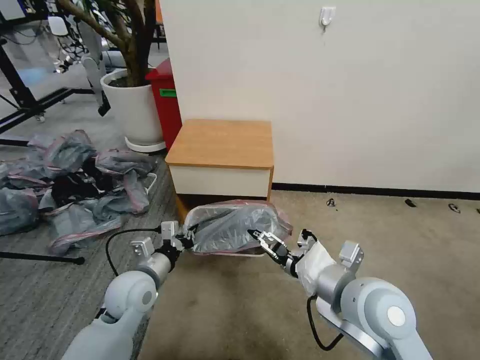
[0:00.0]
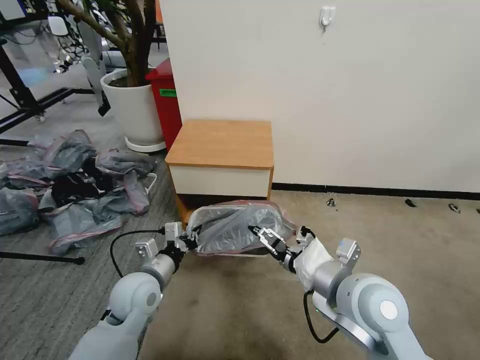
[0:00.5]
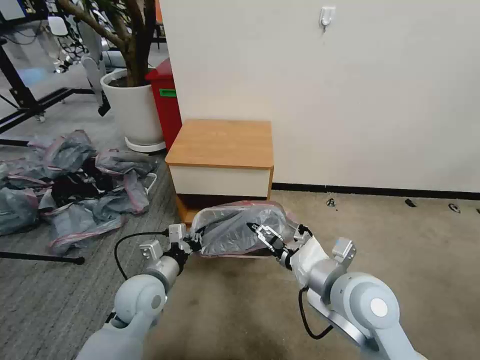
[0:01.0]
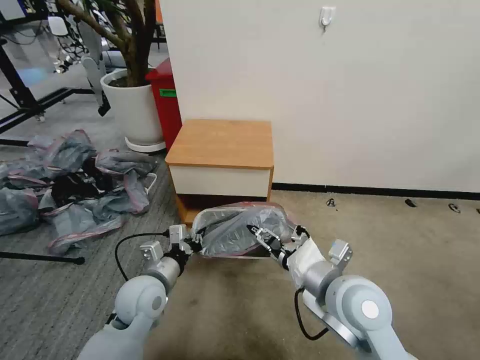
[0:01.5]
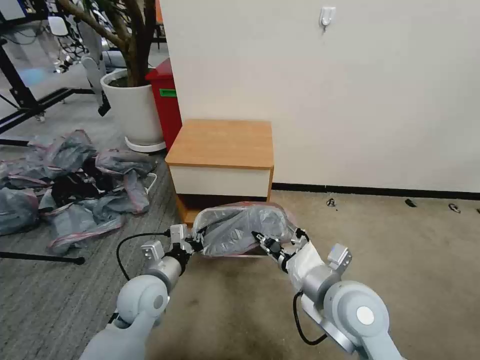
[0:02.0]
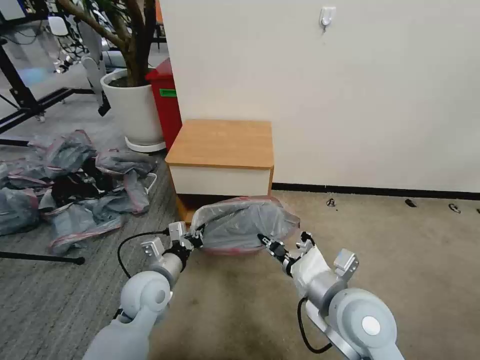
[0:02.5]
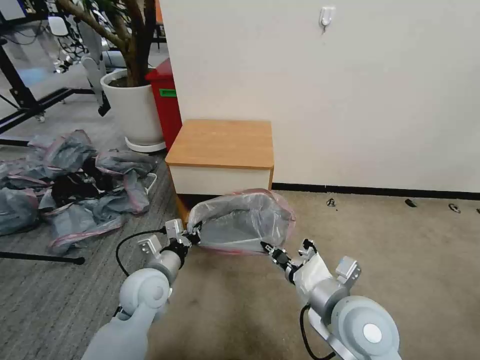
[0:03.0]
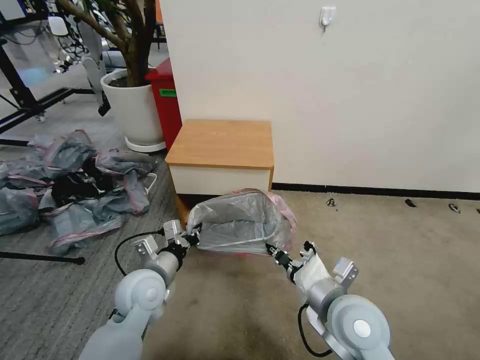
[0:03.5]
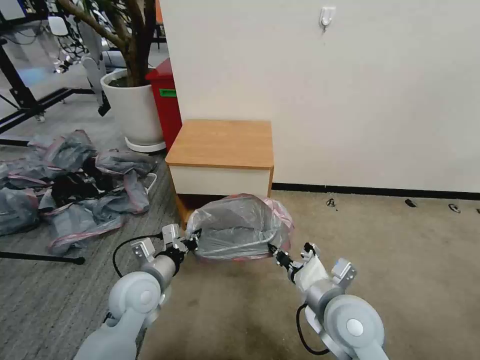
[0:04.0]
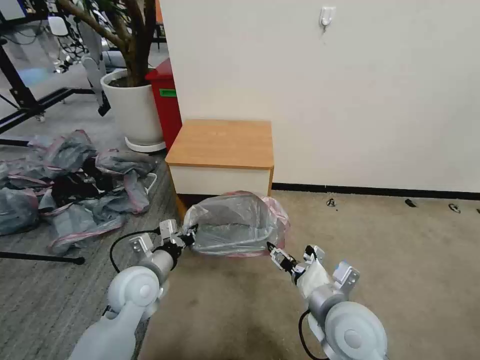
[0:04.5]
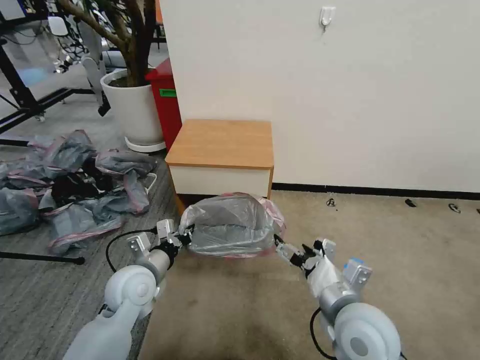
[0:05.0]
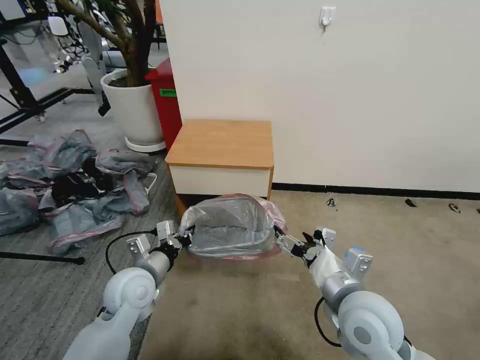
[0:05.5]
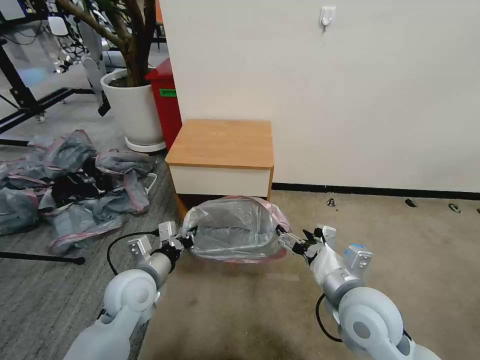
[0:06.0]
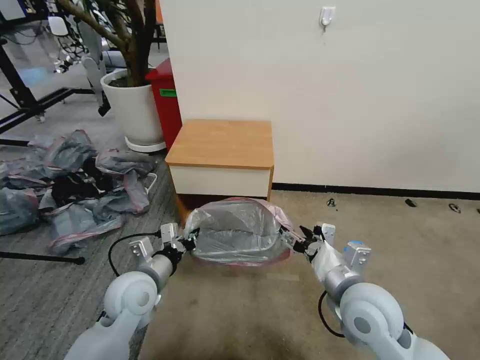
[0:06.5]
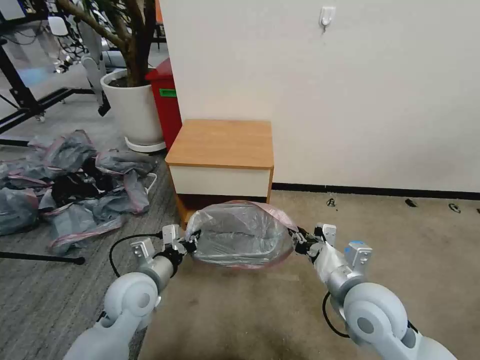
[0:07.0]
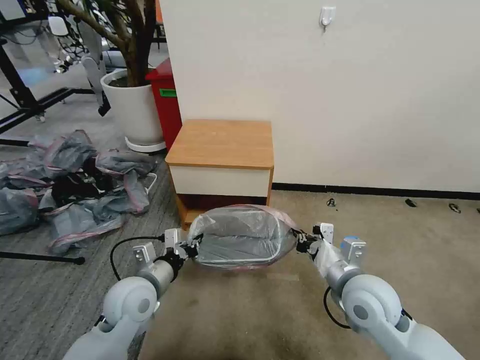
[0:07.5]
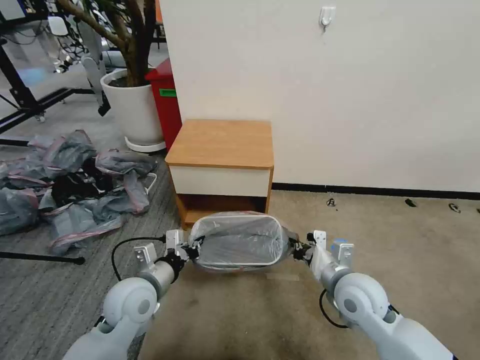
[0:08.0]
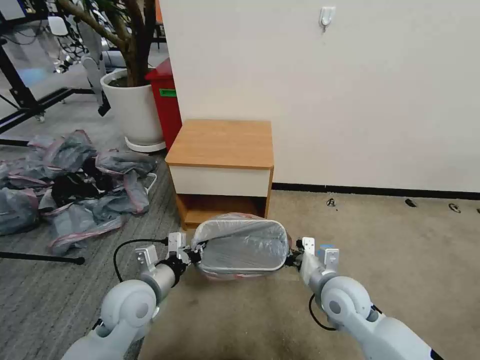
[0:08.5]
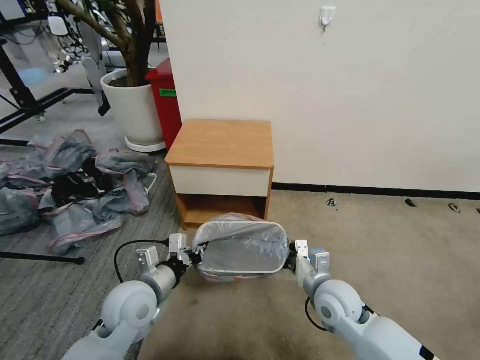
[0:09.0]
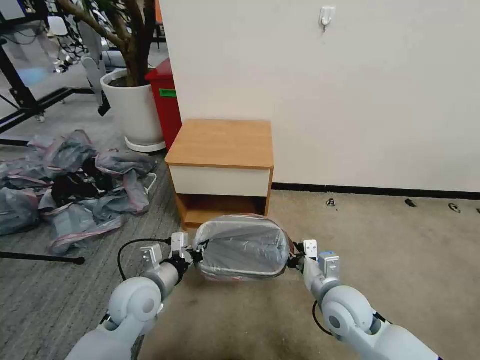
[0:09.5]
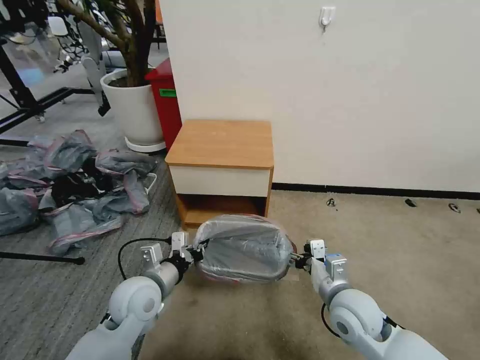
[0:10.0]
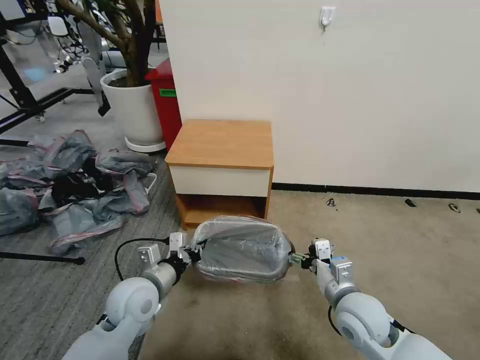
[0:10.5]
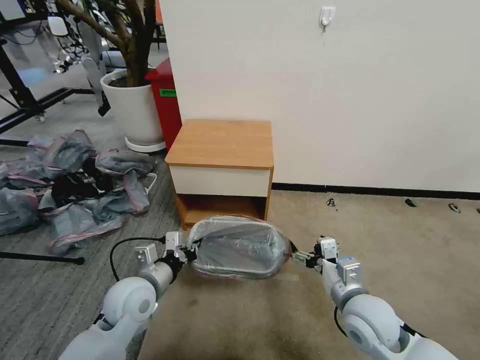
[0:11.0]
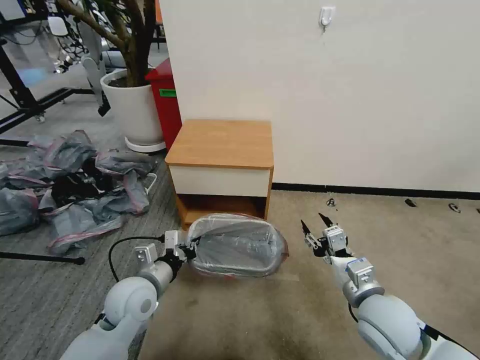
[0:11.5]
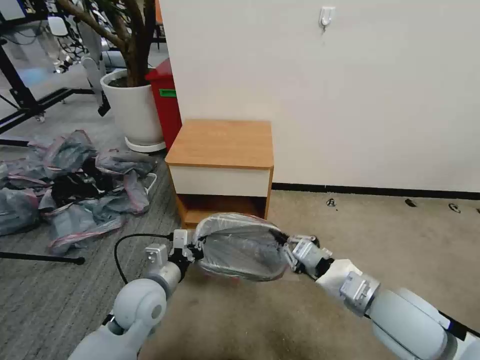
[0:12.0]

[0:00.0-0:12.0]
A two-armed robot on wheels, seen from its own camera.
Task of the whole recording: Pick up the garbage bag from the table and place it over the trash can.
0:00.0 to 0:02.0: The right gripper closes.
0:02.0 to 0:04.0: The grippers move only a little.
0:04.0 to 0:06.0: The right gripper opens its fingers.
0:06.0 to 0:08.0: The right gripper shifts approximately 5 cm downward, and closes.
0:08.0 to 0:10.0: The right gripper opens up.
0:10.0 to 0:12.0: The right gripper goes some 10 cm upward, and closes its fingers.

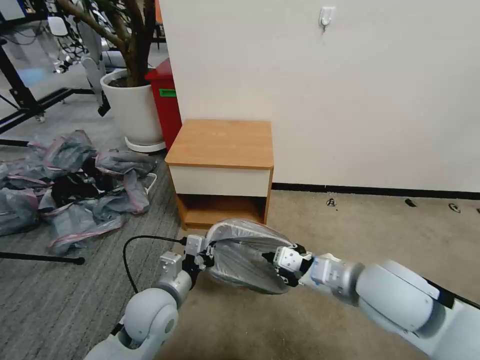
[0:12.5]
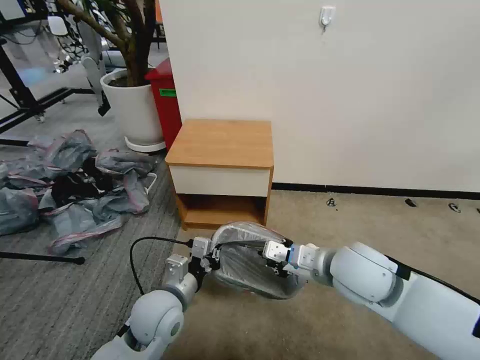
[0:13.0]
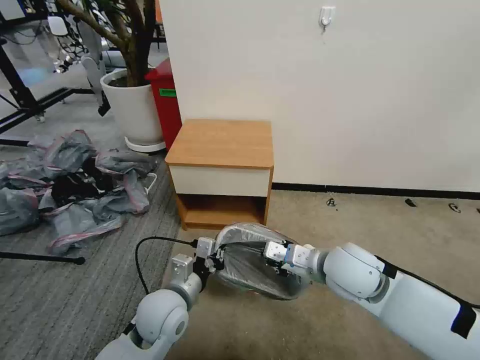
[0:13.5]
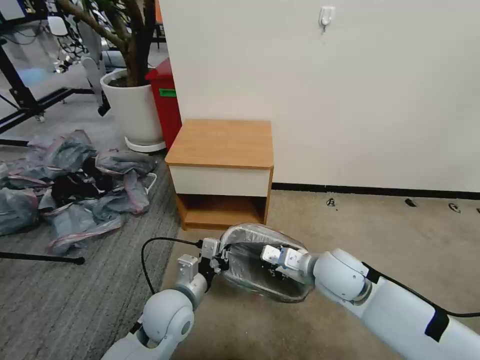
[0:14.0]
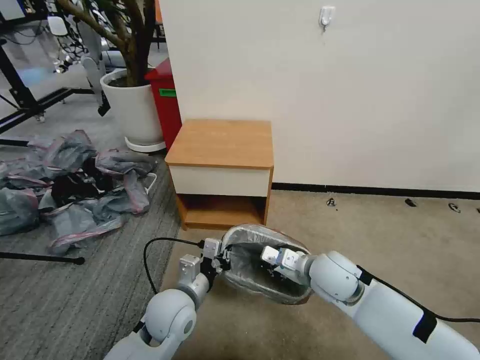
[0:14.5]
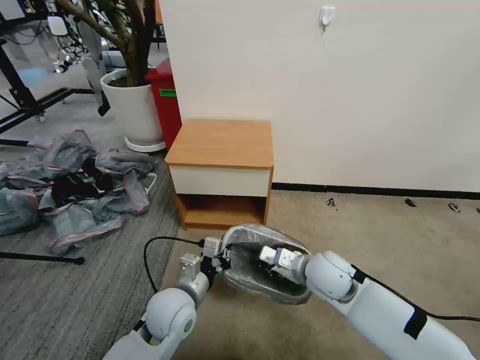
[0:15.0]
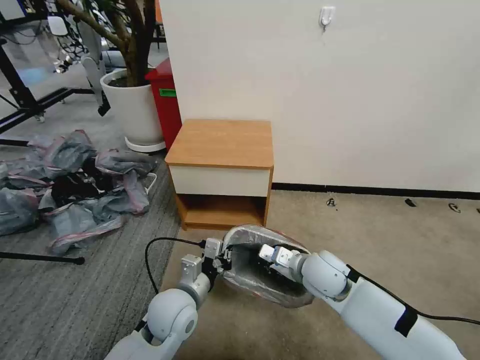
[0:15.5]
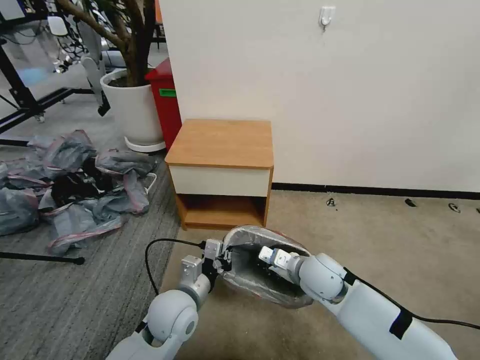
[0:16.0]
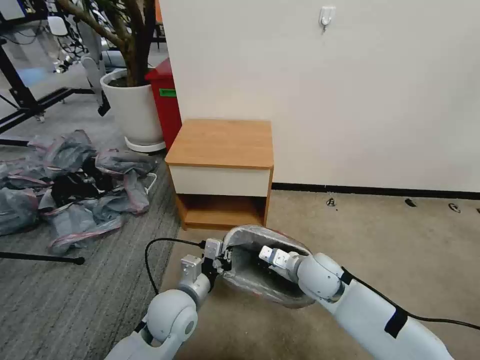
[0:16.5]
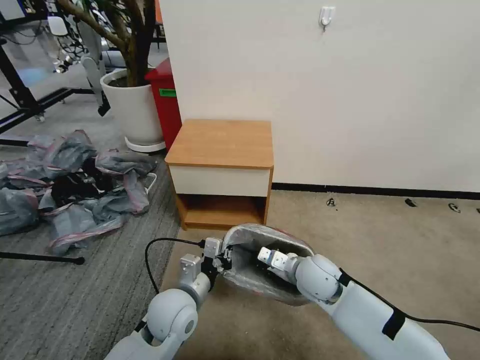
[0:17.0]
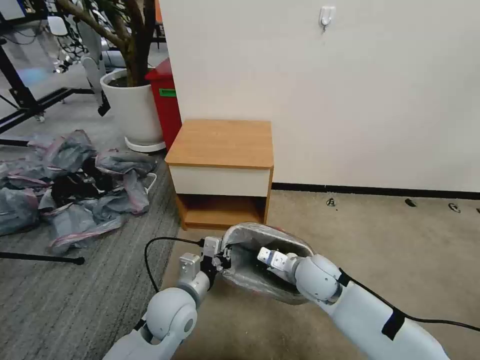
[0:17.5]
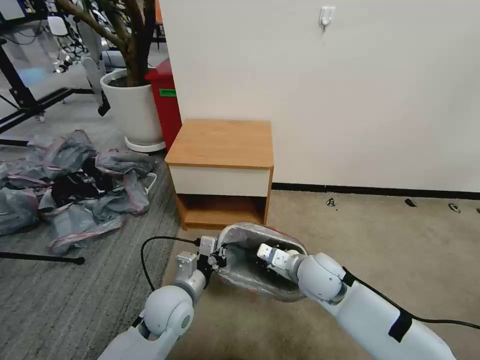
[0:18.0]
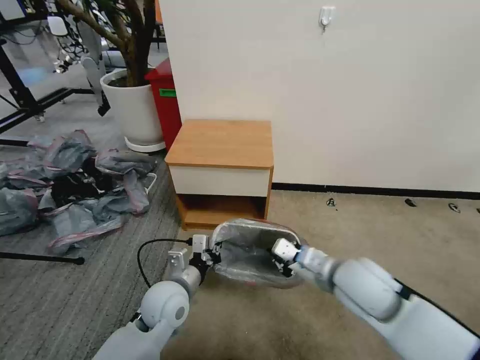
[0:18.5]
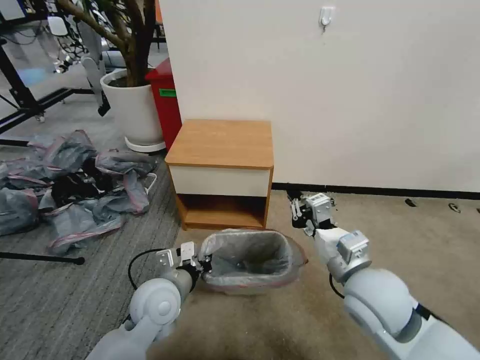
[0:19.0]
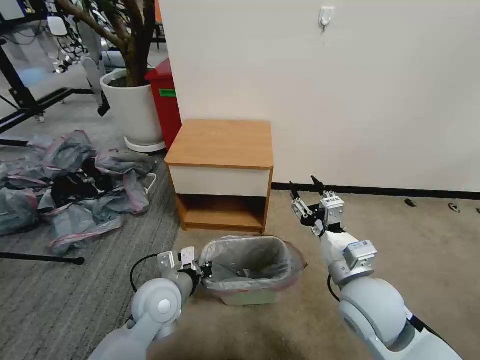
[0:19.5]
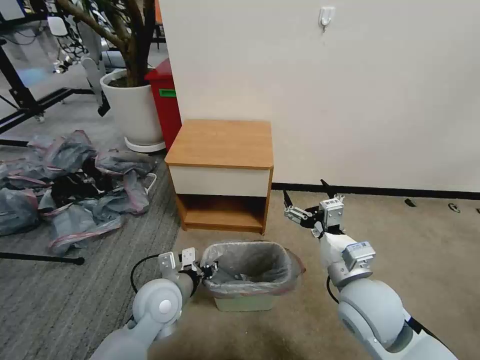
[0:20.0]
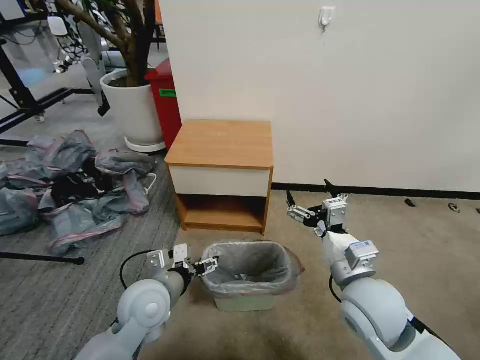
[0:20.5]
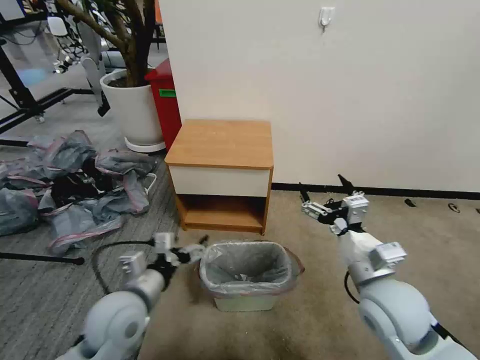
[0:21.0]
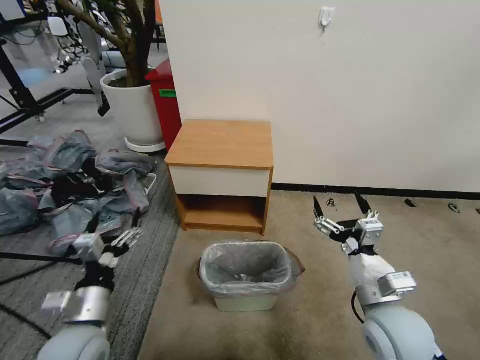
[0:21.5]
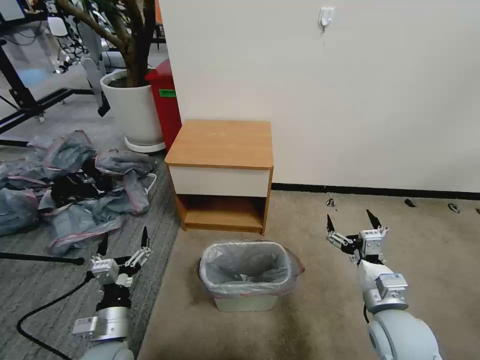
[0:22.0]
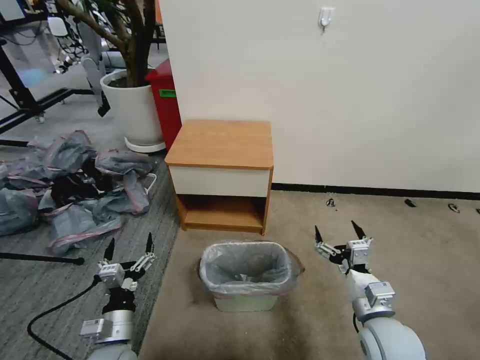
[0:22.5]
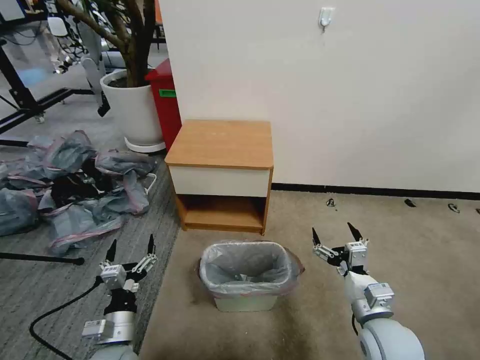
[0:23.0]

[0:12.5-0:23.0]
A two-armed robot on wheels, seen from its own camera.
Task of the whole recording: Pick up the garbage bag from the table and place it over the trash can.
0:12.5 to 0:14.5: The right gripper heads downward and forward, covering approximately 15 cm.
0:14.5 to 0:16.5: There are only small adjustments of the grippers.
0:16.5 to 0:19.0: The right gripper heads upward and backward, covering some 15 cm.
0:19.0 to 0:21.0: The left gripper is displaced to the left by roughly 5 cm, and opens. Meanwhile the right gripper opens.
0:21.0 to 0:23.0: The left gripper heads downward and backward, covering about 15 cm. Meanwhile the right gripper moves downward, approximately 10 cm.
